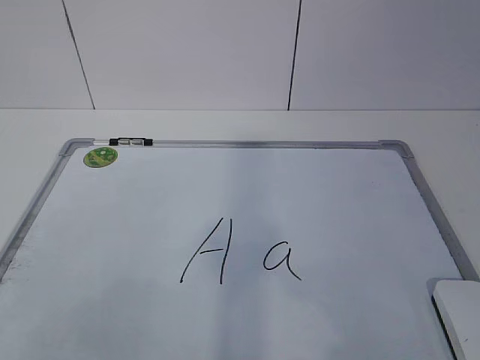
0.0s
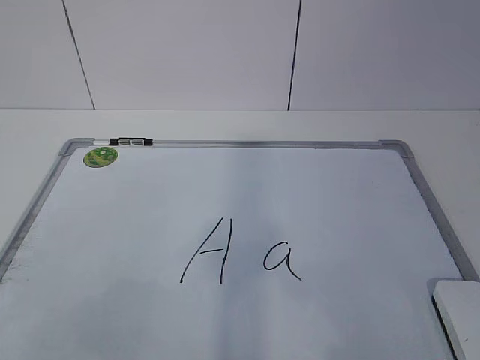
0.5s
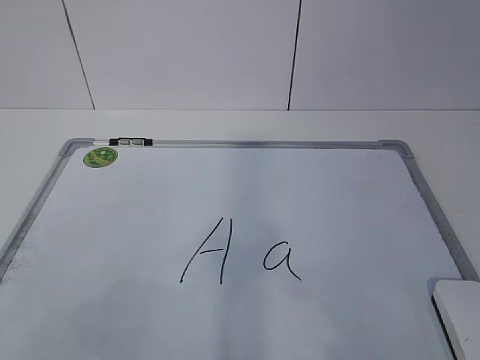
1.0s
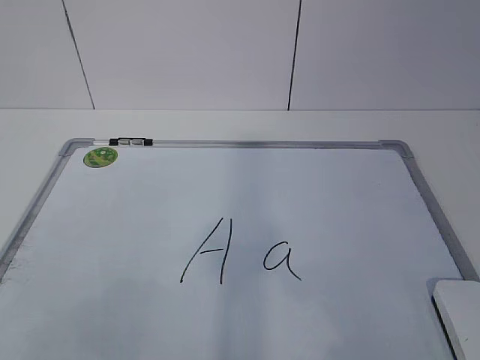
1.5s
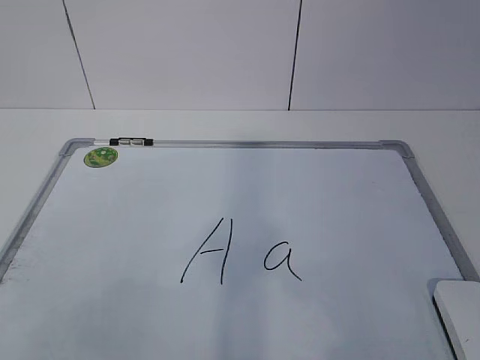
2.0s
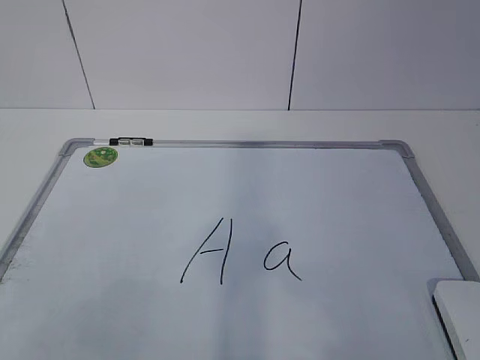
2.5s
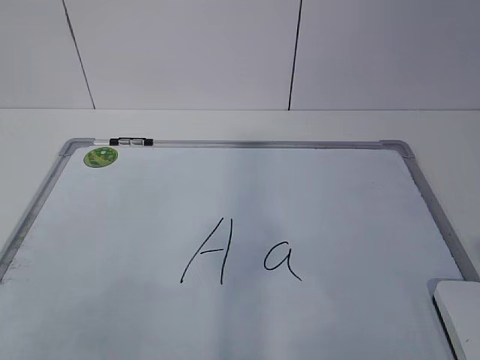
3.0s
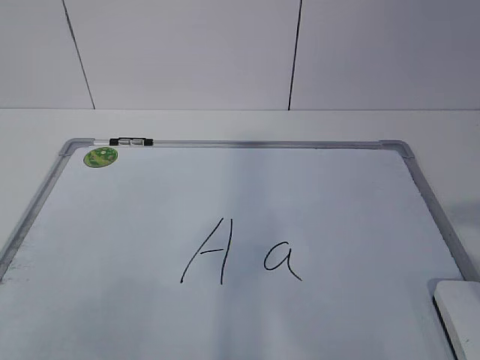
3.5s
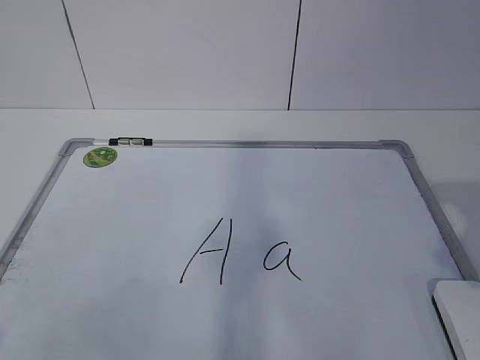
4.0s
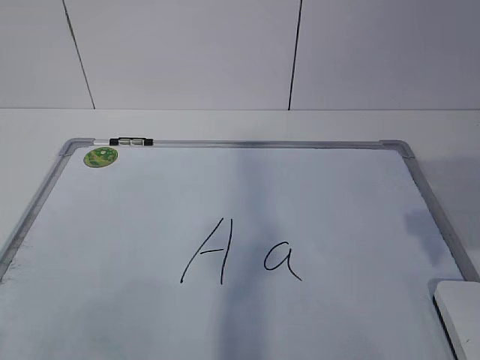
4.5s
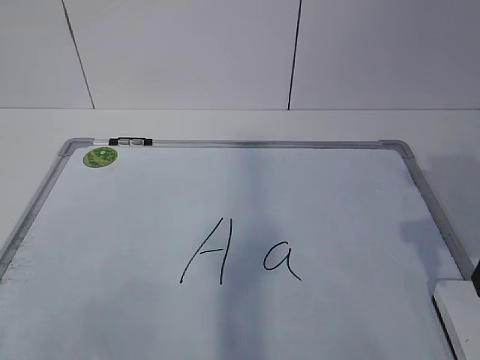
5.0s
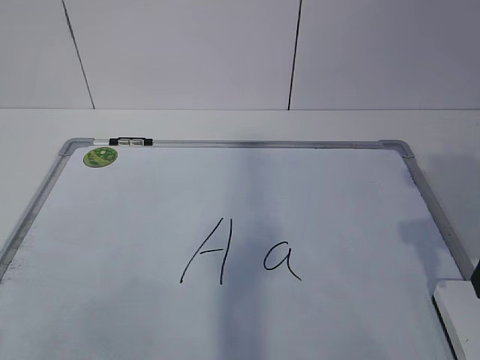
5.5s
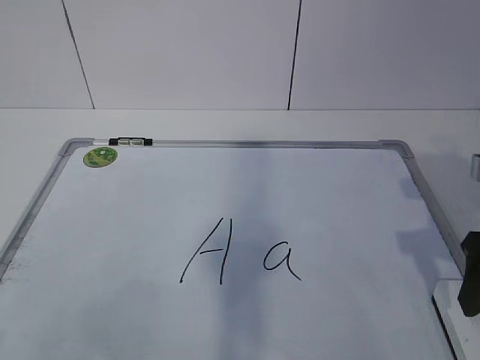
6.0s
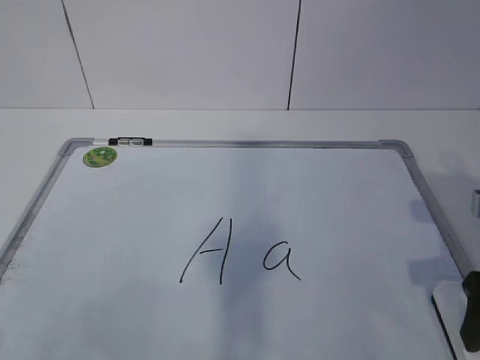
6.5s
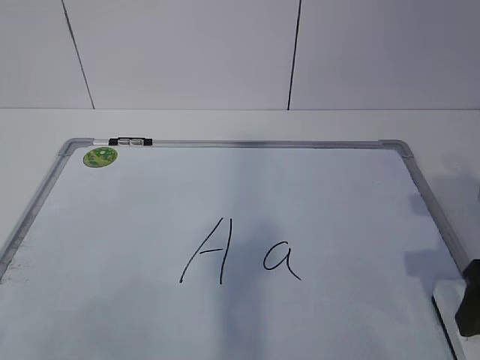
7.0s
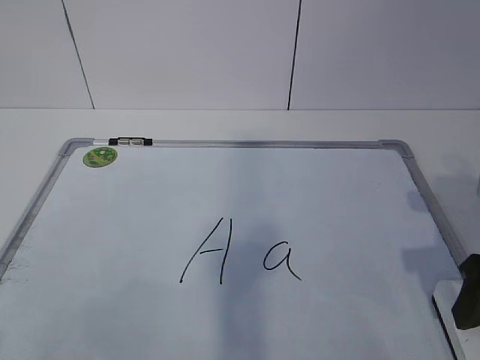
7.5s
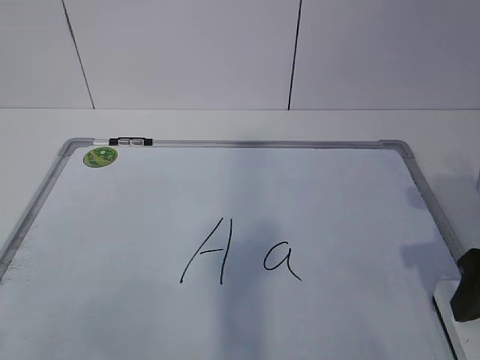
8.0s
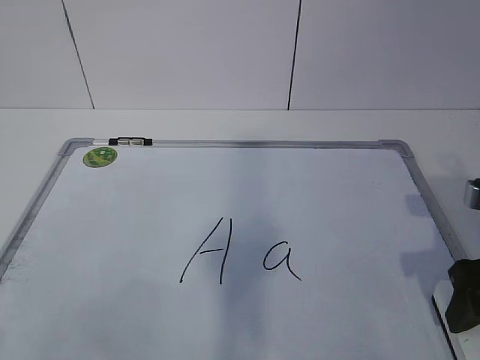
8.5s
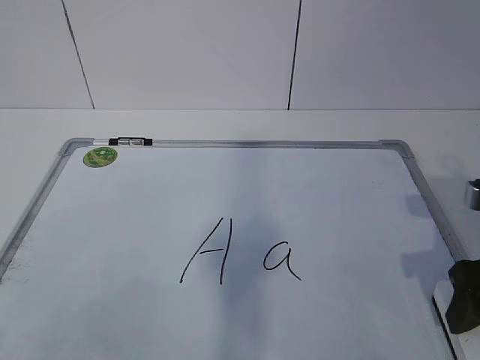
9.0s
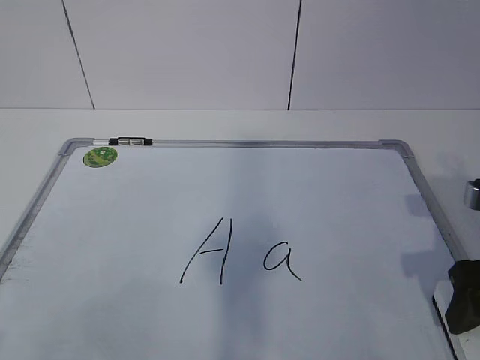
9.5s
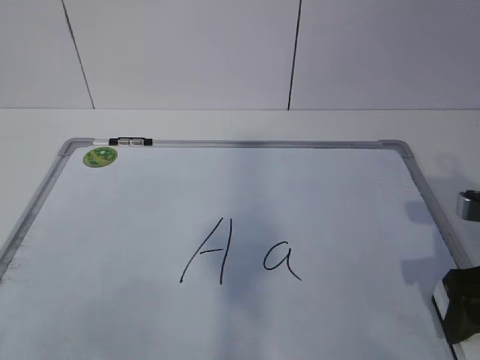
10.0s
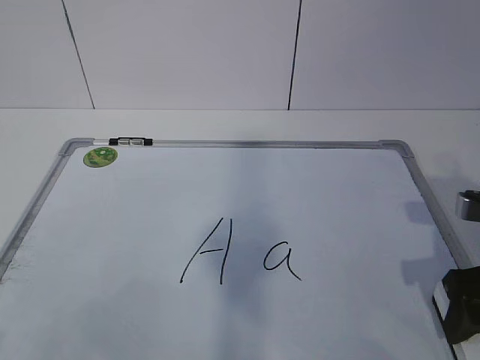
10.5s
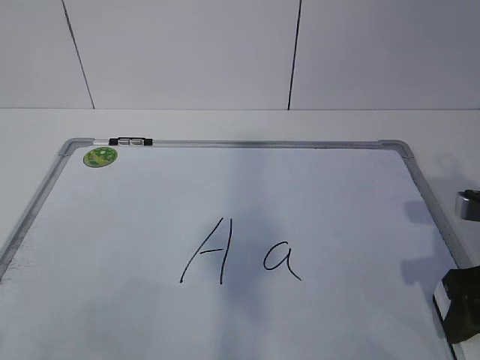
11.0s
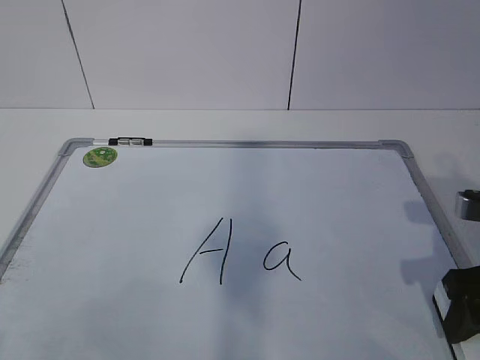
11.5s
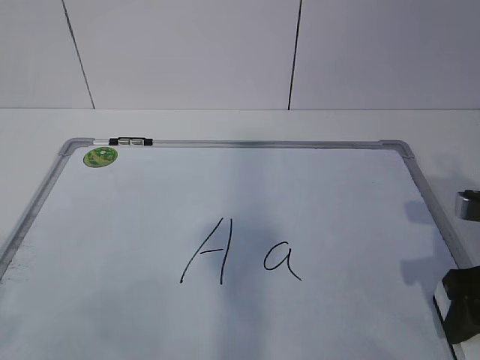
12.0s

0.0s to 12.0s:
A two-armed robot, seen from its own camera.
Task of the whole recording: pick up the eraser on the blackboard and erase the letter "a".
Step, 0.0s to 10.0s: Grab the eraser with your right hand.
4.0s to 6.0s: The right gripper goes some 10 cm forward.
8.0s to 10.0s: There are only small adjustments of the grippers.

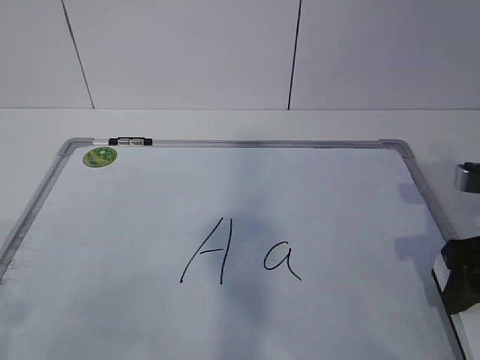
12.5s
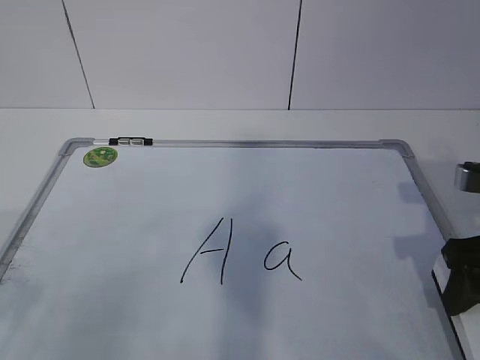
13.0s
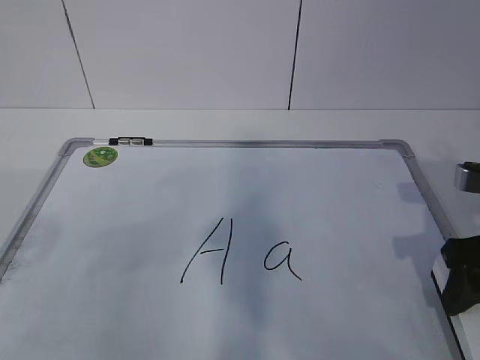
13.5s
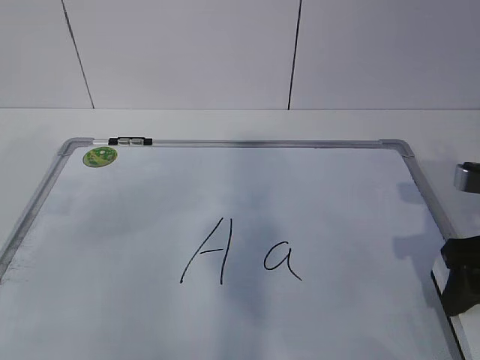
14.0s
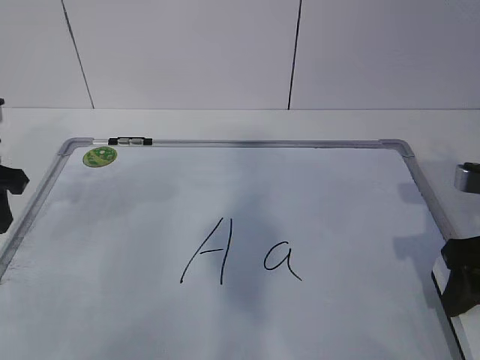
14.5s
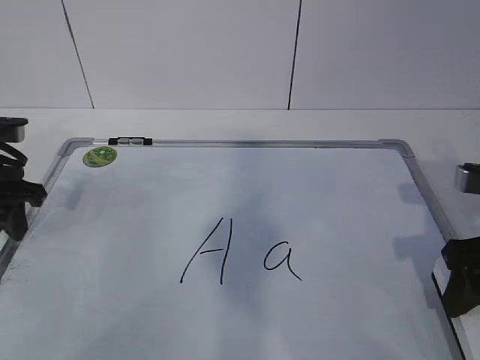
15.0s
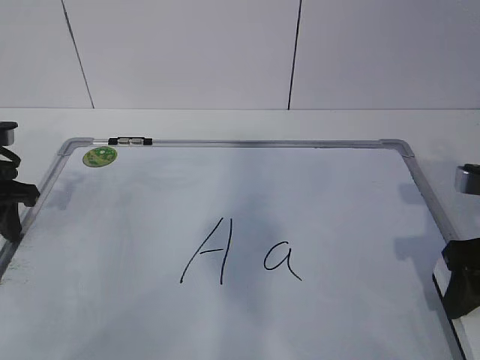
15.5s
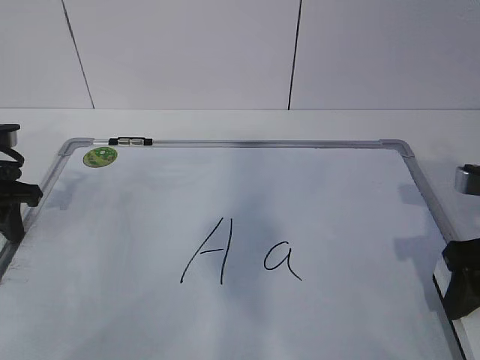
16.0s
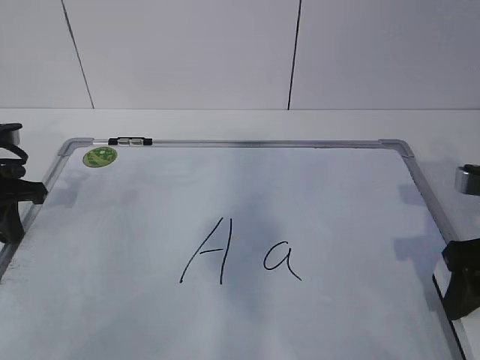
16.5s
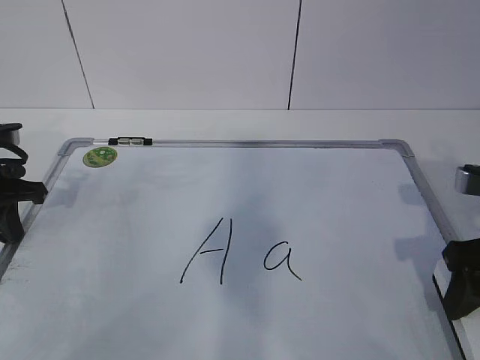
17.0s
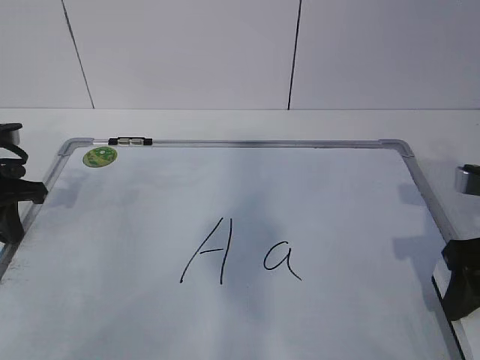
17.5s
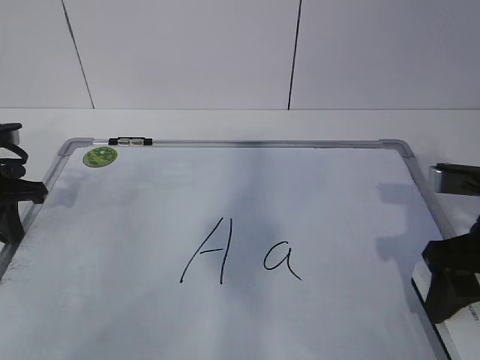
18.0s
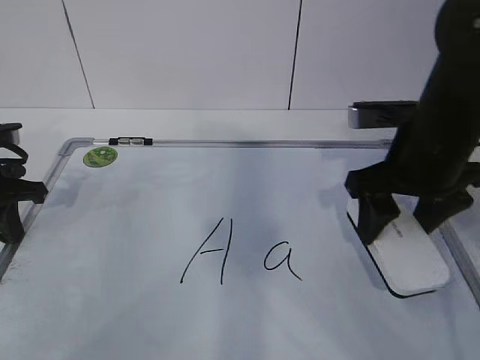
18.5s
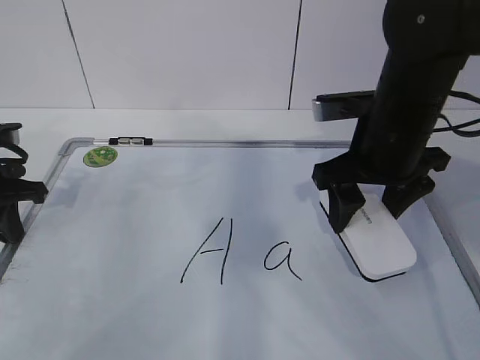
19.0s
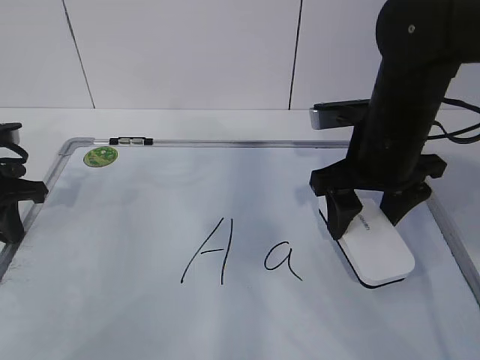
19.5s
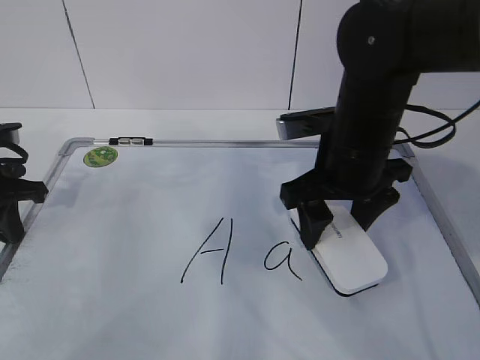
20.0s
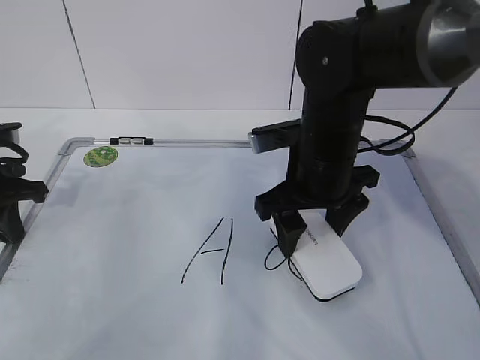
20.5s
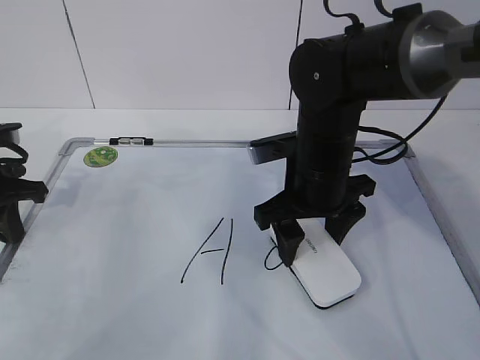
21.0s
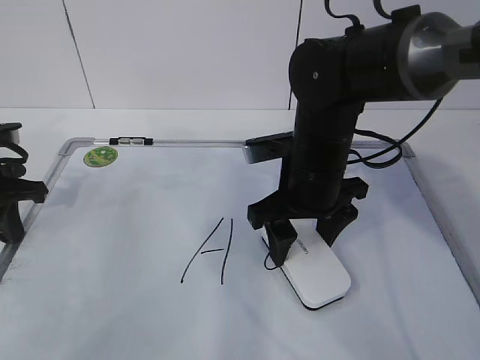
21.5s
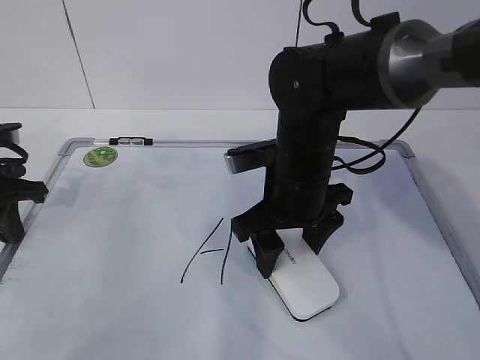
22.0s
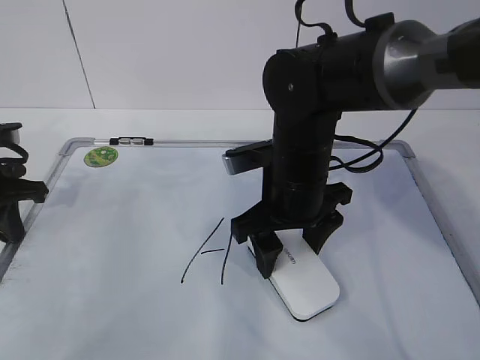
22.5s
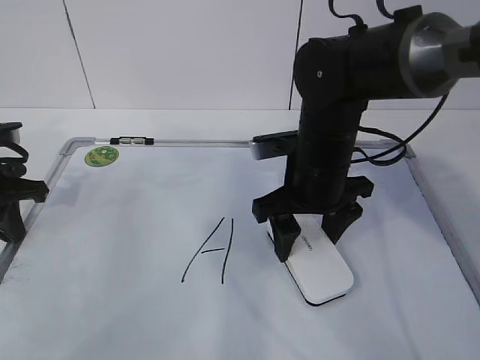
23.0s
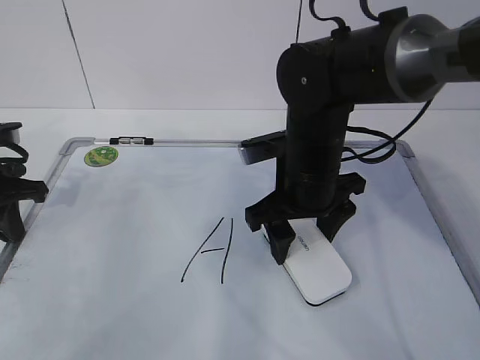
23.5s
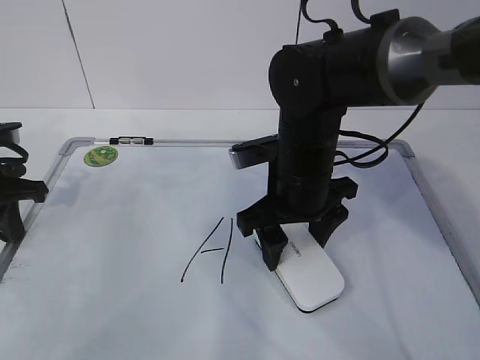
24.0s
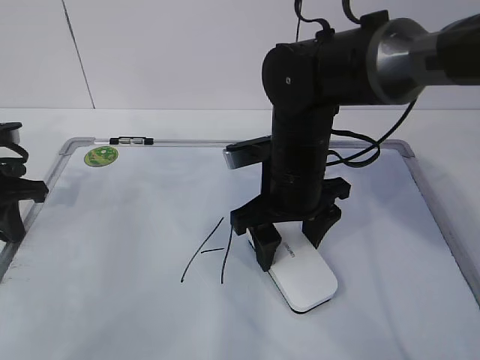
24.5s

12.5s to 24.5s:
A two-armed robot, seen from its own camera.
Task of the whole recording: pick up the eraser on the blackboard and erase the letter "a".
Step, 14.0s to 21.0s: Erase the letter a with your right hand.
12.5s to 14.5s: The left gripper is displaced forward by approximately 25 cm.
14.5s to 16.5s: The left gripper travels downward by approximately 5 cm, and closes.
16.5s to 18.5s: The right gripper travels to the left and forward by about 10 cm.
18.5s to 20.5s: The right gripper shifts about 10 cm to the left.
20.5s to 24.5s: There are only small adjustments of the grippers.

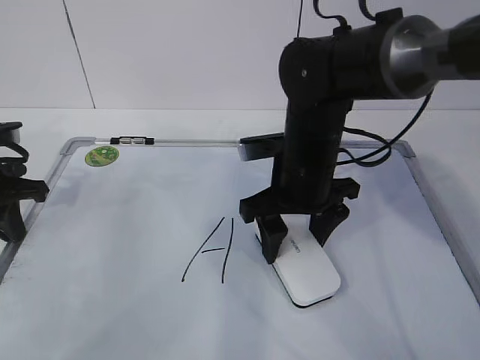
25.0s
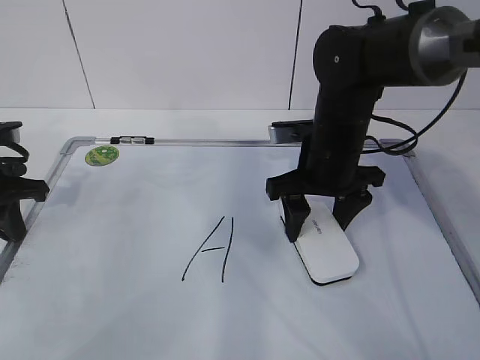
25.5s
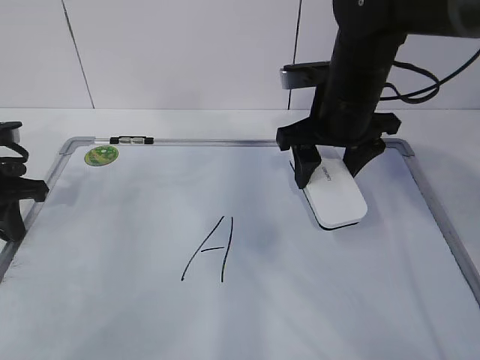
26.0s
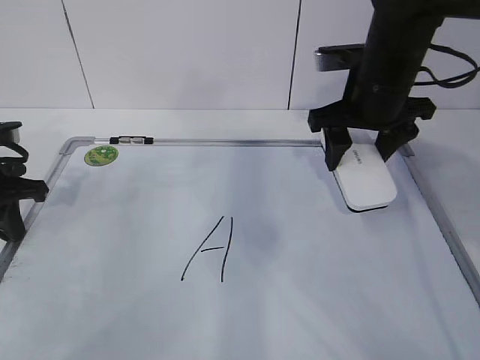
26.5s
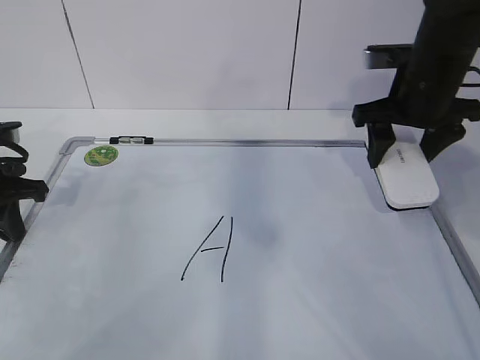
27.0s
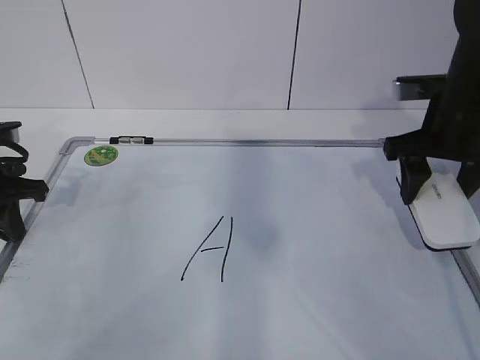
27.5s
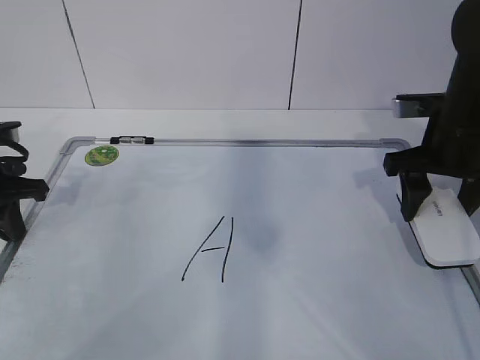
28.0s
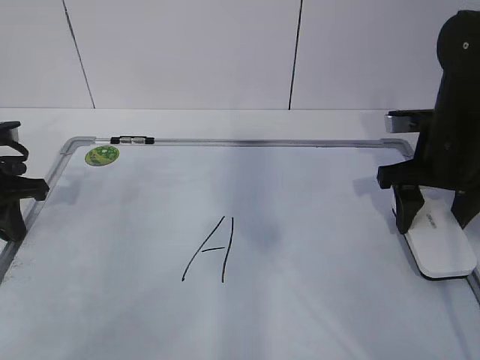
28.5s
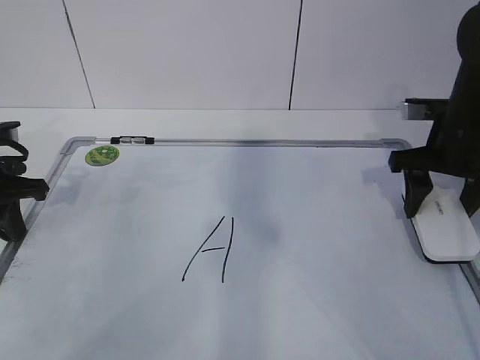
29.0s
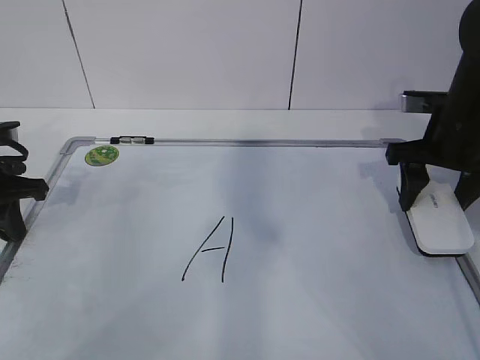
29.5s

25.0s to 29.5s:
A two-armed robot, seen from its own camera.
Task of the whole recording: pick up the eraser on the blackboard and erase the letter "a".
25.0s to 27.0s: The right gripper travels to the right and upward by about 15 cm.
27.0s to 29.5s: The right gripper moves some 5 cm.
